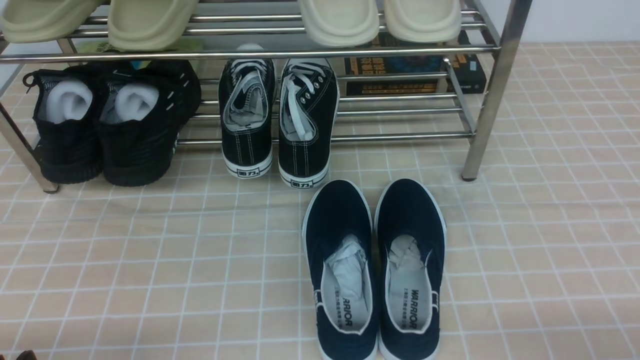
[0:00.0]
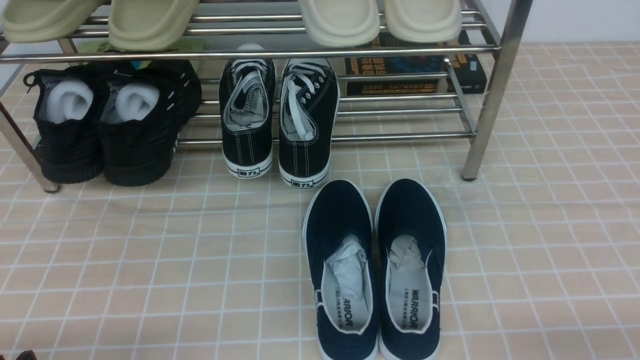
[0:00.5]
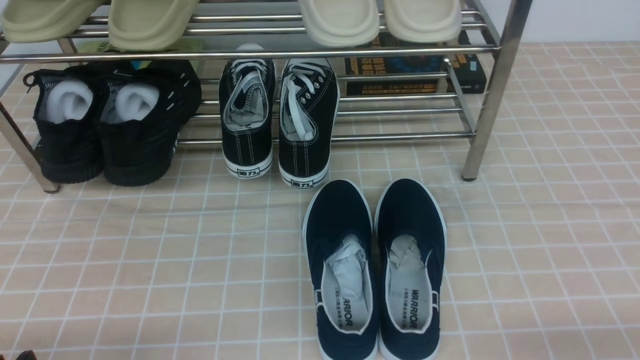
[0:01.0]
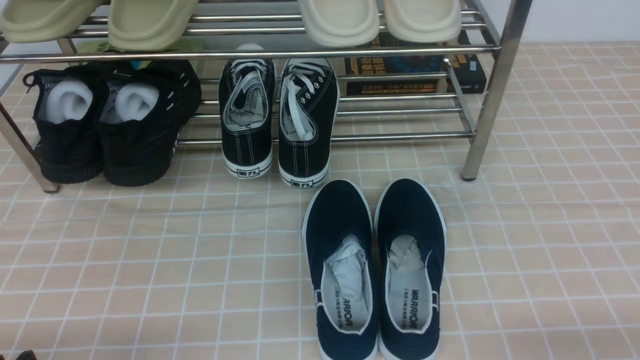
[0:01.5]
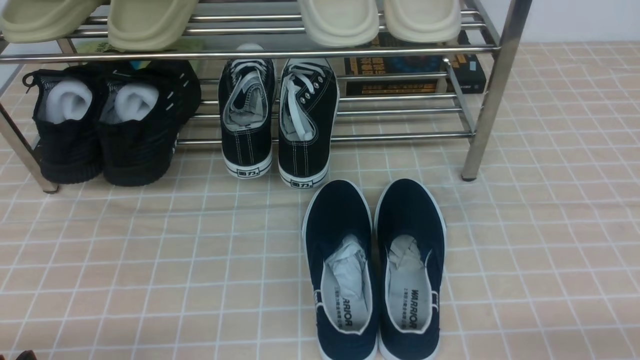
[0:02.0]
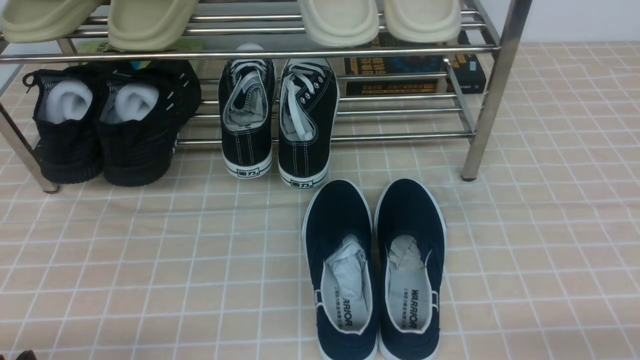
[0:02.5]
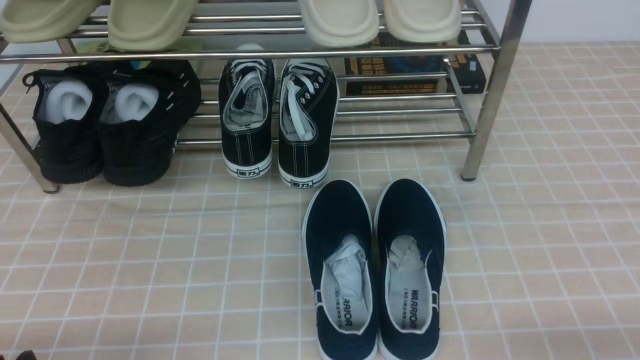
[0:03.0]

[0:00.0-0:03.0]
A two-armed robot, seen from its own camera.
0:01.5 to 0:03.0: Both grippers stay about where they are.

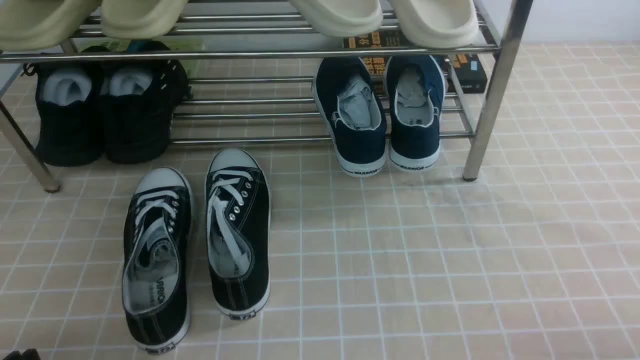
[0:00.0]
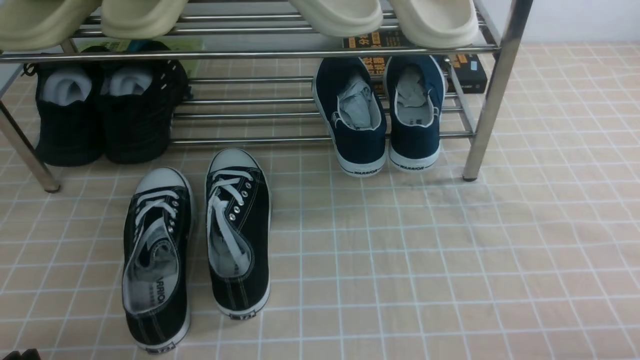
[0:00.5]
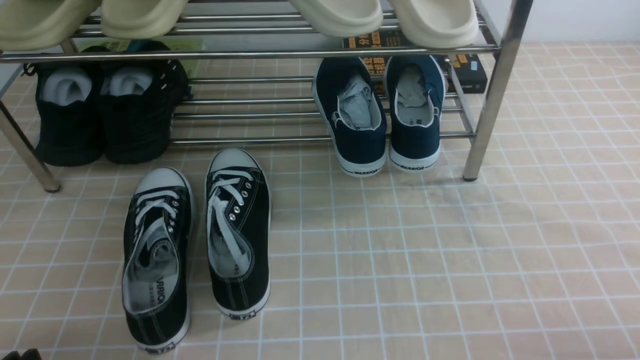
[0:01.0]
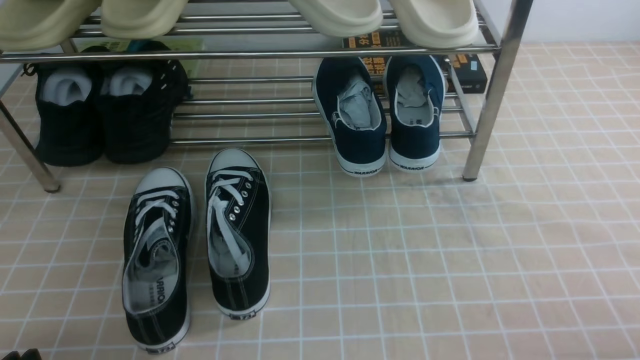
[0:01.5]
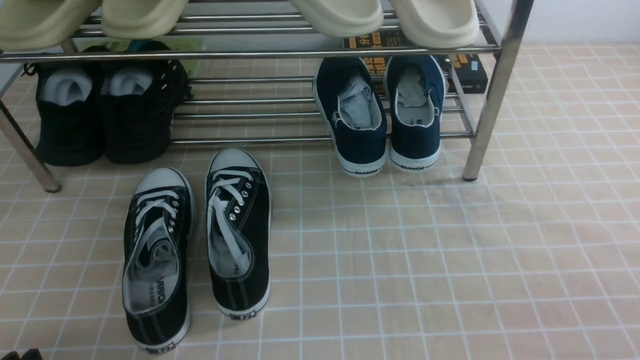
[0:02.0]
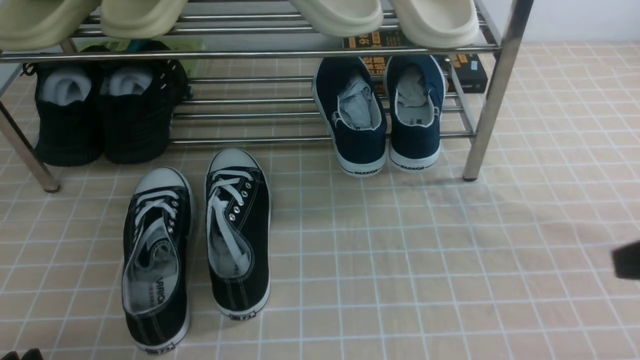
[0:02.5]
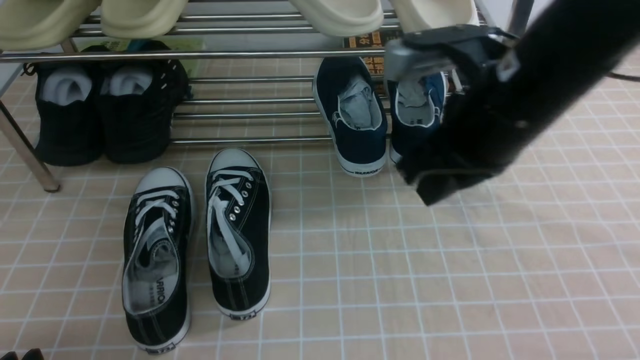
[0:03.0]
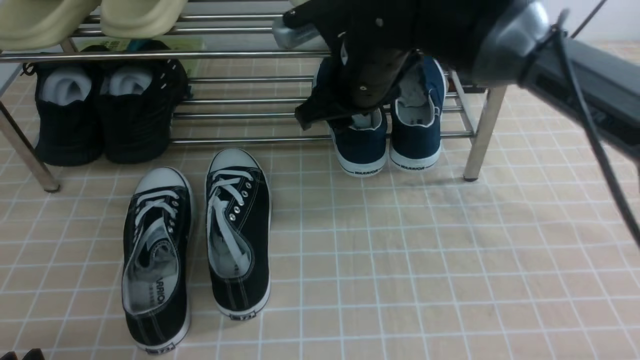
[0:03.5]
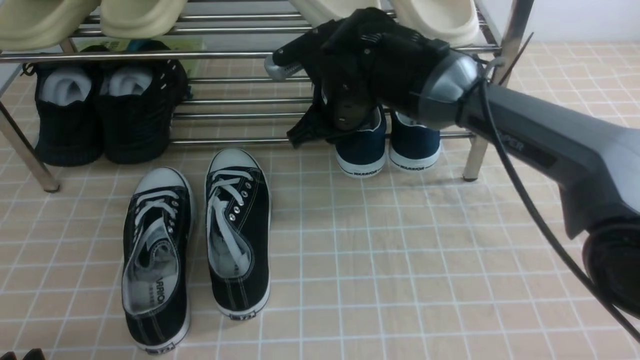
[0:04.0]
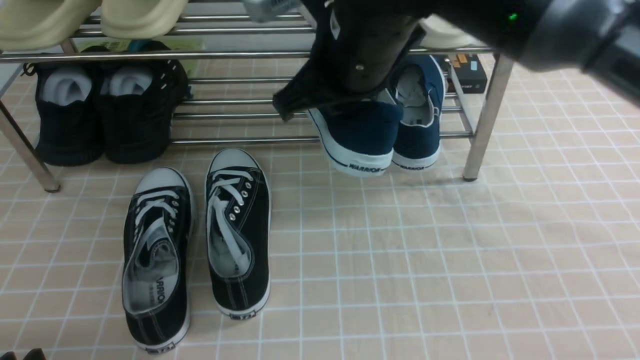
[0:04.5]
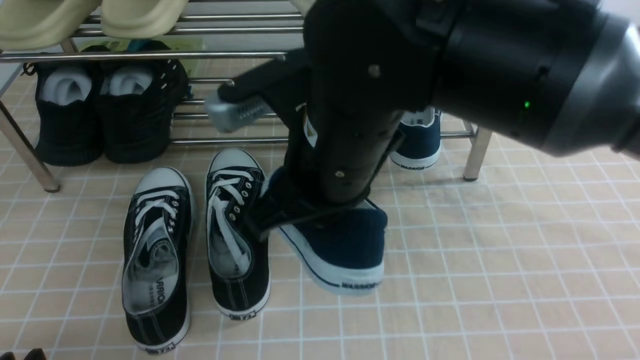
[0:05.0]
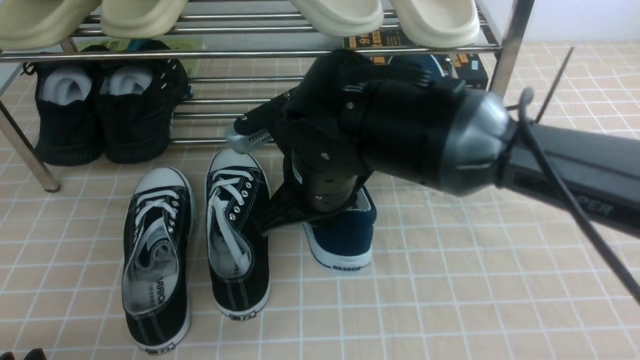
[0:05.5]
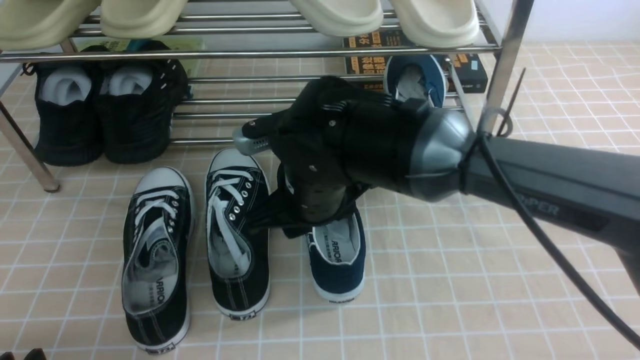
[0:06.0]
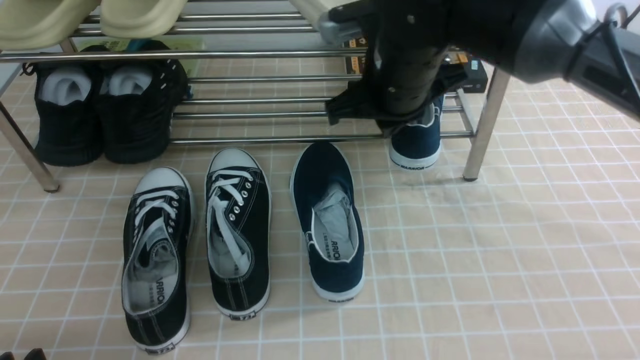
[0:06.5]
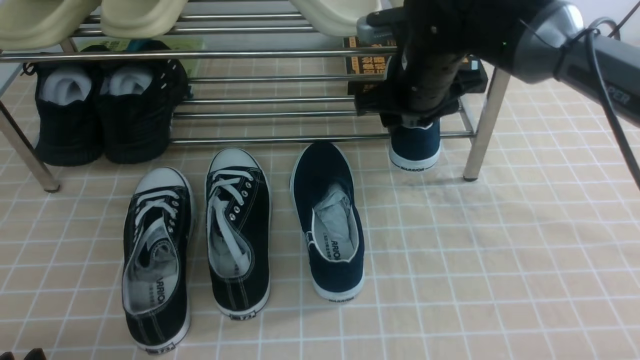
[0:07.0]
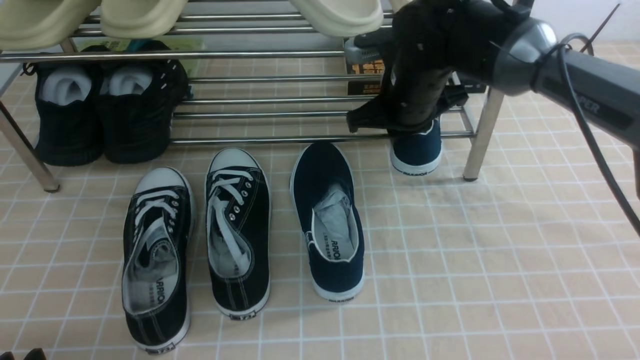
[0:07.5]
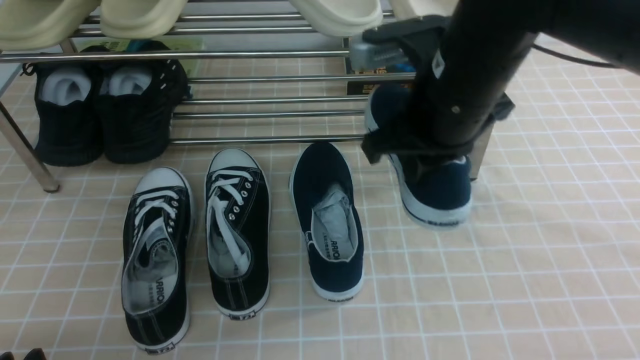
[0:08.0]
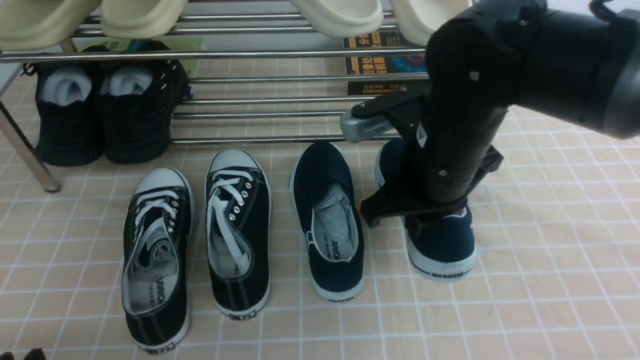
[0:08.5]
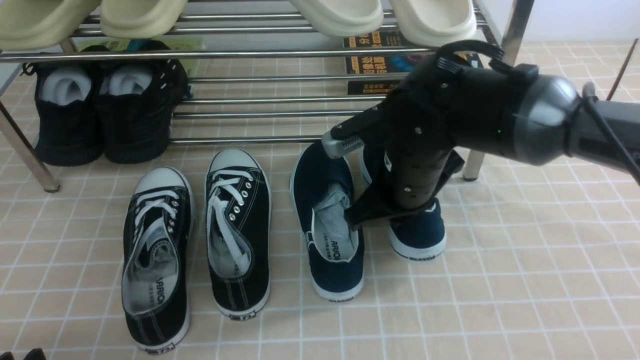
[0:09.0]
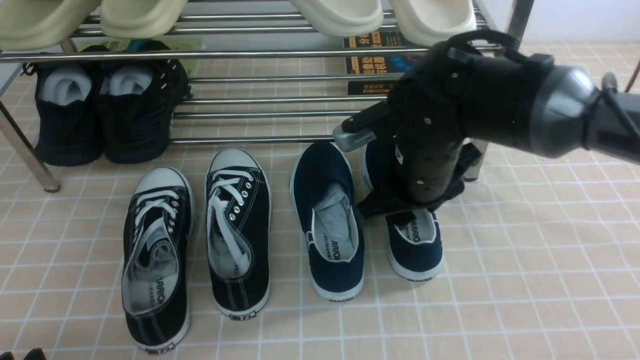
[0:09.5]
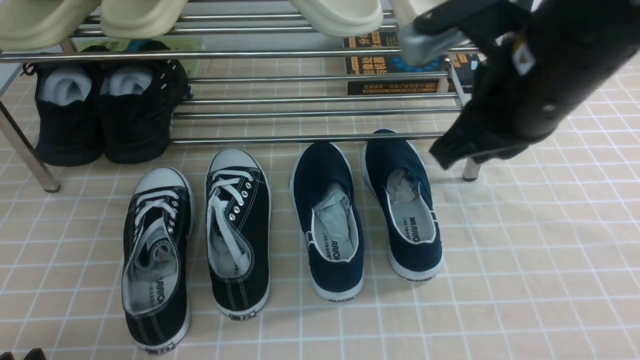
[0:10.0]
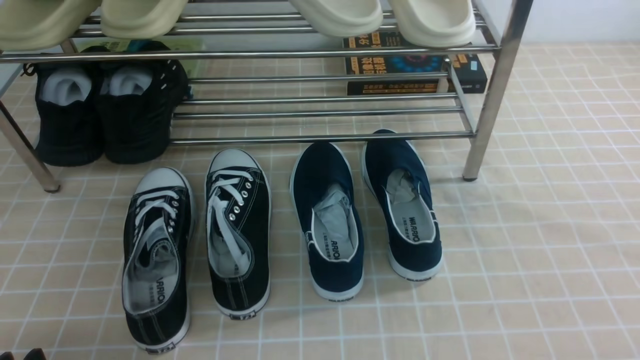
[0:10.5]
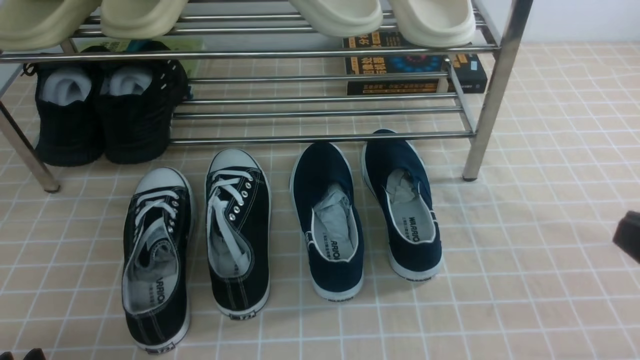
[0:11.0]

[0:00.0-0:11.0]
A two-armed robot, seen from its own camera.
Step, 0:00.0 to 0:03.5: use the right arm to clamp a shoe on the right side of the shoe rack.
Step, 0:04.5 to 0:06.0: use the right arm to take out the clamped shoe from the shoe rack and put it down.
Step, 0:06.5 to 0:07.5: use the right arm to clamp a shoe on the right side of the shoe rack.
Step, 0:08.0 to 0:09.5: use the right arm to take out the clamped shoe from the shoe rack and put it down.
0:02.0 to 0:03.5: The left gripper opens its fingers, while the right gripper heads forward and to the left, covering roughly 40 cm, and opens its fingers.
0:03.5 to 0:05.5: The right gripper is displaced backward by about 10 cm, and closes its fingers.
0:05.5 to 0:07.5: The right gripper heads forward and to the right, covering roughly 15 cm, and opens and closes again.
0:07.5 to 0:09.0: The right gripper moves backward, approximately 10 cm, and closes up.
0:09.0 to 0:11.0: The right gripper is displaced backward and to the right by about 30 cm, and opens, then closes again.

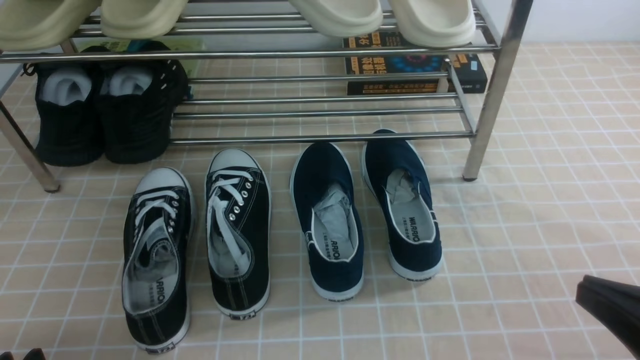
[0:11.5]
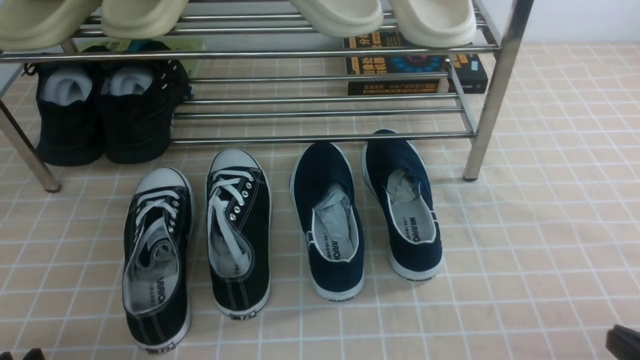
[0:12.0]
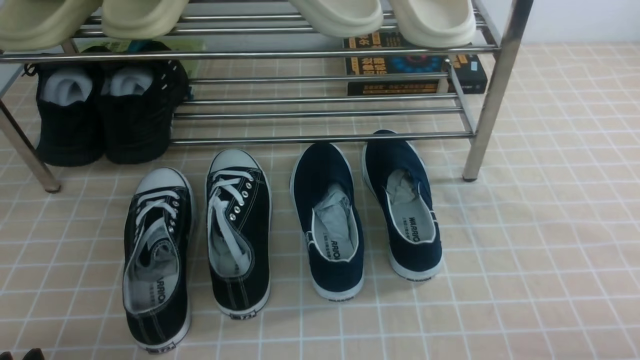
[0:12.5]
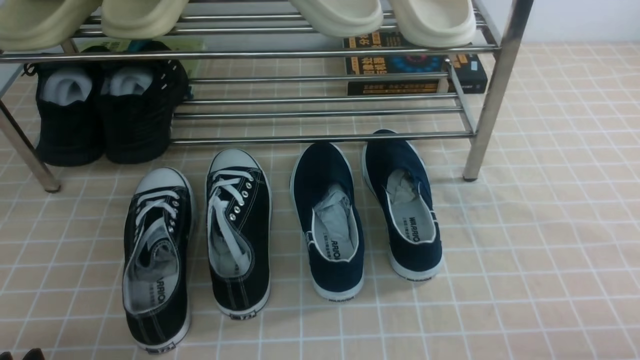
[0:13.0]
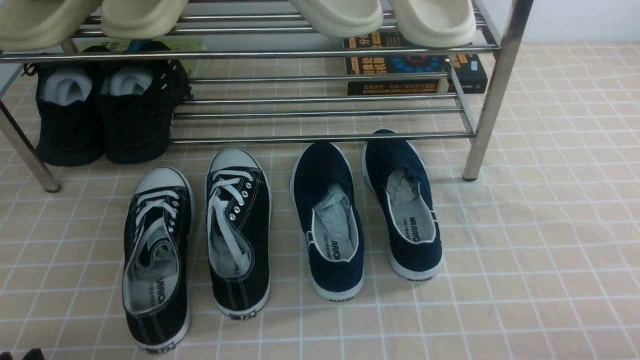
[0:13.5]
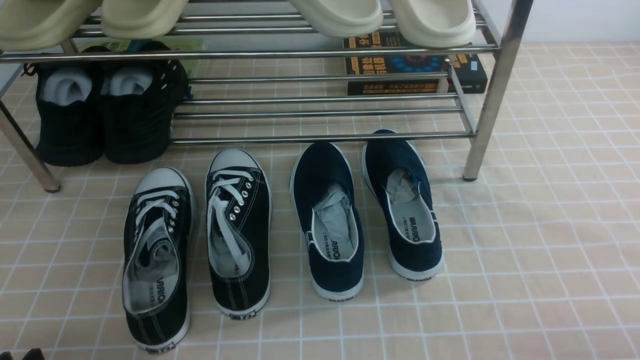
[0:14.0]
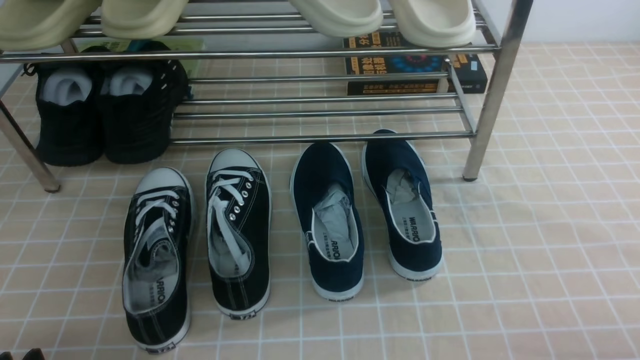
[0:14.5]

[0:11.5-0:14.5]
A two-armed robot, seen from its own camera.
0:11.5 to 0:13.0: The right gripper heads downward and to the right, covering about 10 cm.
0:13.0 to 0:14.5: Both grippers stay about where they are.
